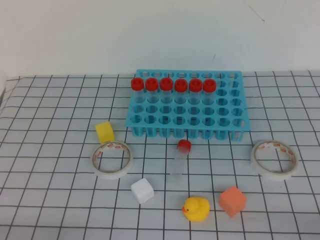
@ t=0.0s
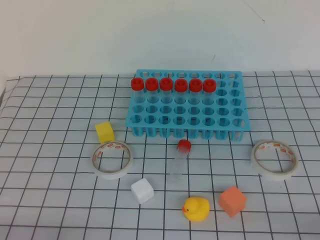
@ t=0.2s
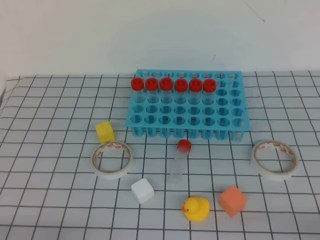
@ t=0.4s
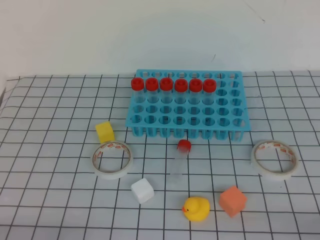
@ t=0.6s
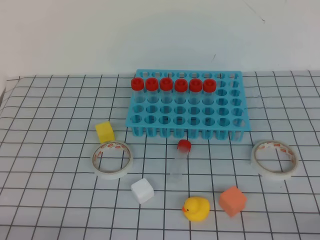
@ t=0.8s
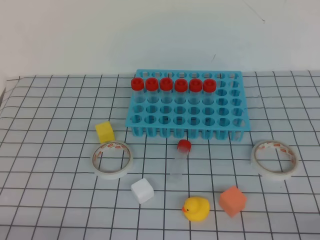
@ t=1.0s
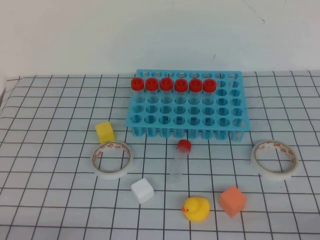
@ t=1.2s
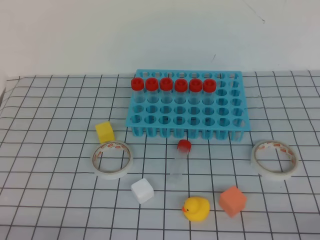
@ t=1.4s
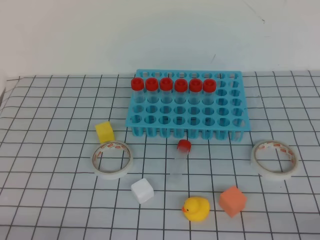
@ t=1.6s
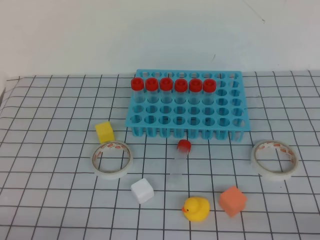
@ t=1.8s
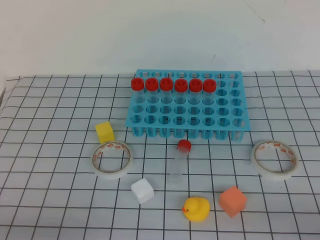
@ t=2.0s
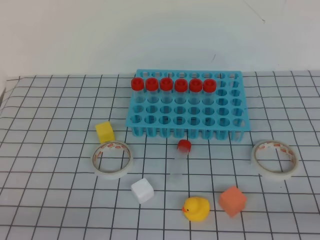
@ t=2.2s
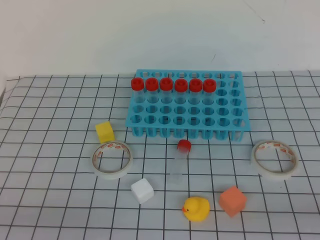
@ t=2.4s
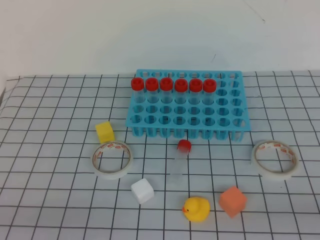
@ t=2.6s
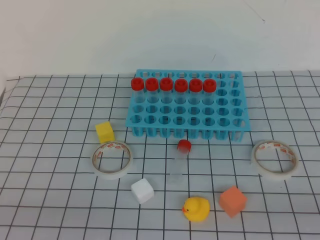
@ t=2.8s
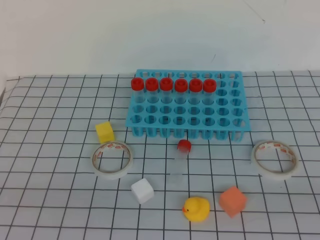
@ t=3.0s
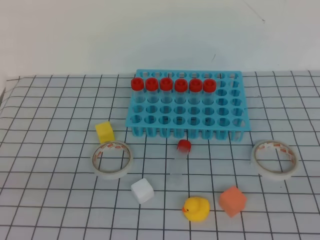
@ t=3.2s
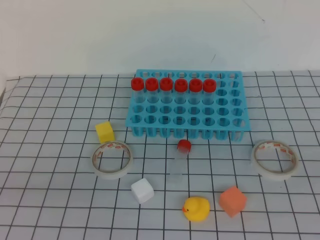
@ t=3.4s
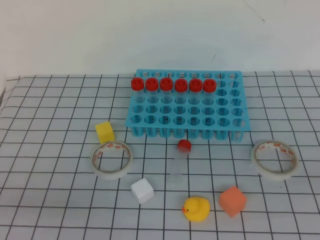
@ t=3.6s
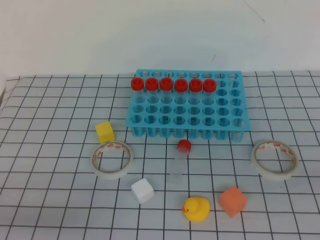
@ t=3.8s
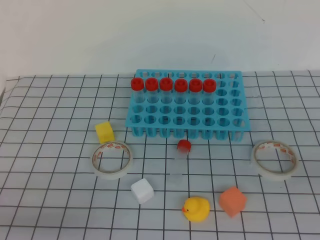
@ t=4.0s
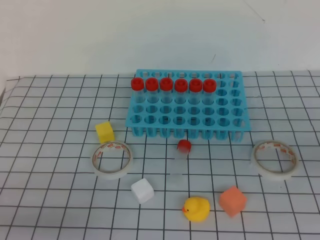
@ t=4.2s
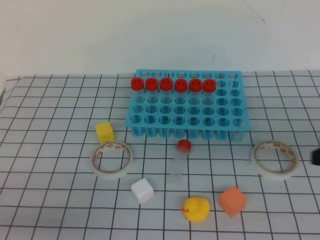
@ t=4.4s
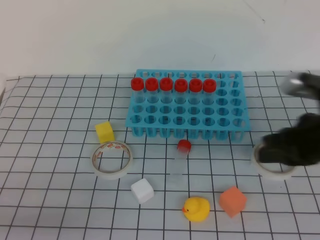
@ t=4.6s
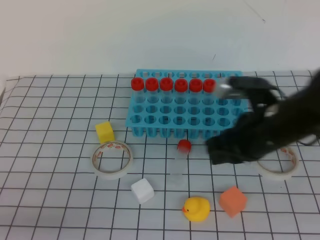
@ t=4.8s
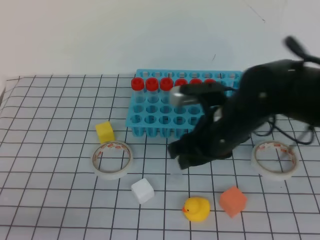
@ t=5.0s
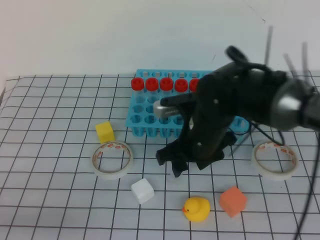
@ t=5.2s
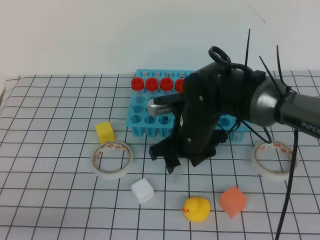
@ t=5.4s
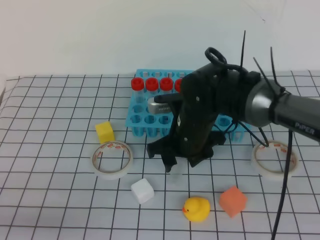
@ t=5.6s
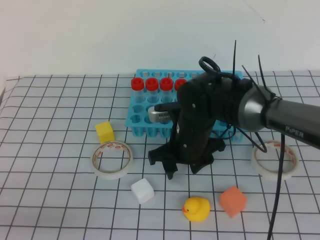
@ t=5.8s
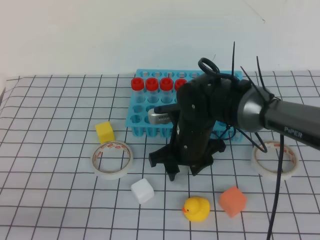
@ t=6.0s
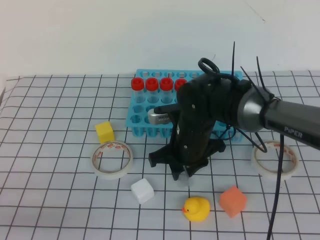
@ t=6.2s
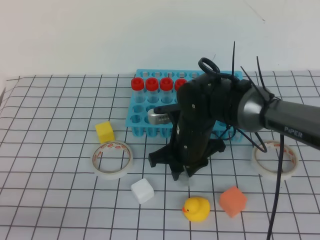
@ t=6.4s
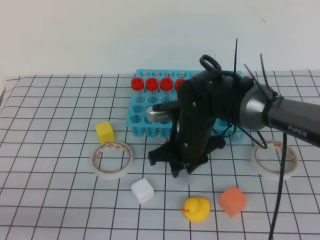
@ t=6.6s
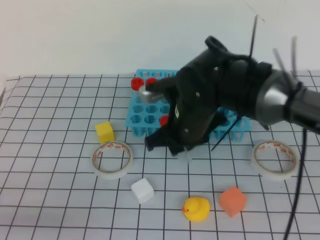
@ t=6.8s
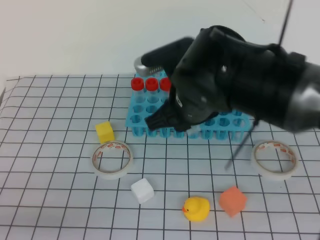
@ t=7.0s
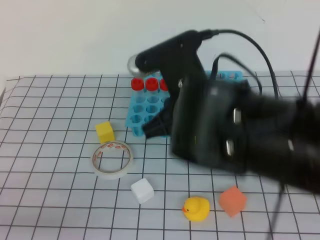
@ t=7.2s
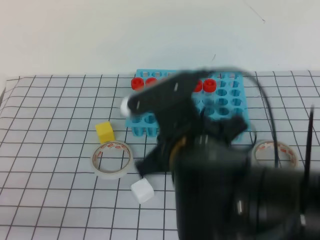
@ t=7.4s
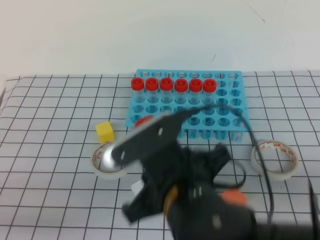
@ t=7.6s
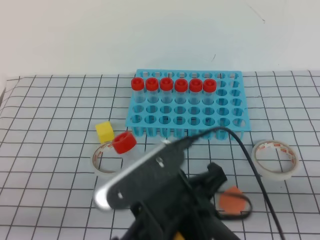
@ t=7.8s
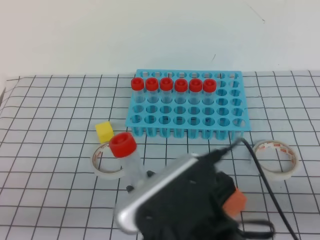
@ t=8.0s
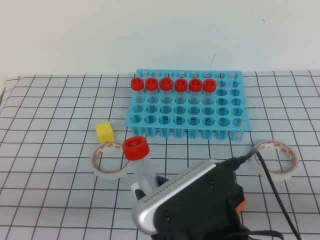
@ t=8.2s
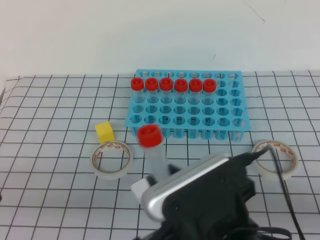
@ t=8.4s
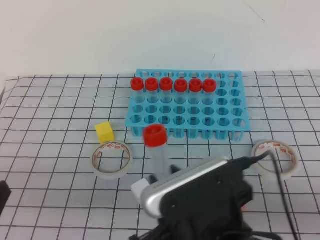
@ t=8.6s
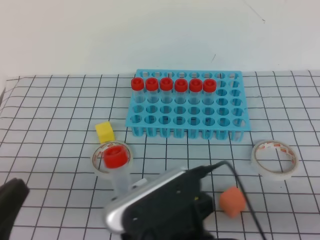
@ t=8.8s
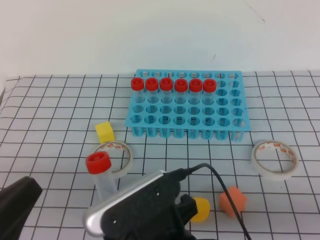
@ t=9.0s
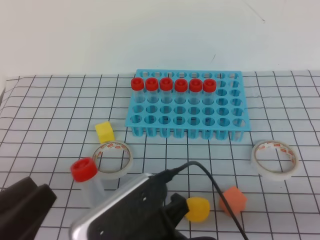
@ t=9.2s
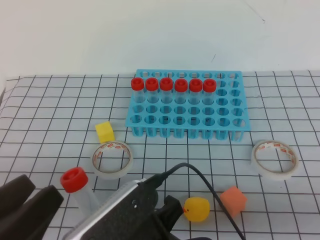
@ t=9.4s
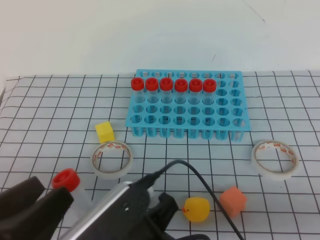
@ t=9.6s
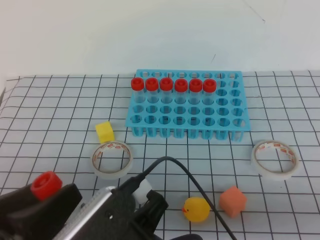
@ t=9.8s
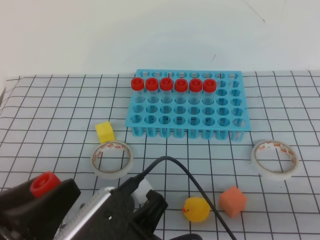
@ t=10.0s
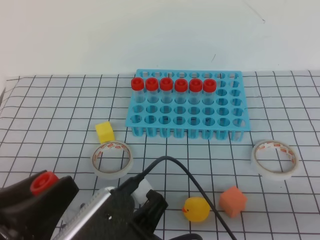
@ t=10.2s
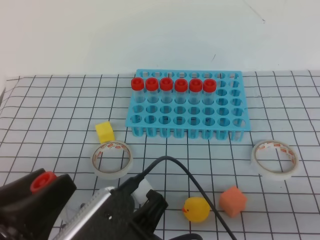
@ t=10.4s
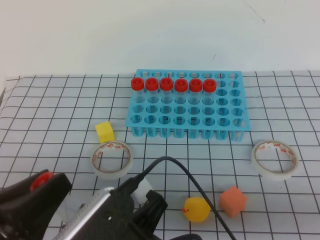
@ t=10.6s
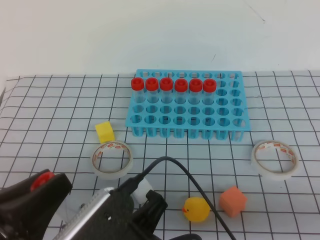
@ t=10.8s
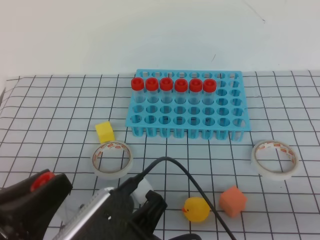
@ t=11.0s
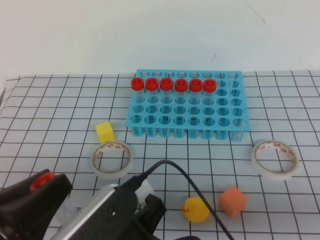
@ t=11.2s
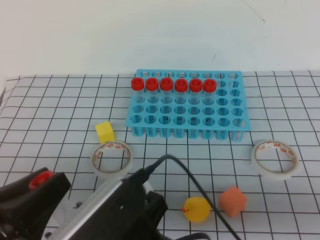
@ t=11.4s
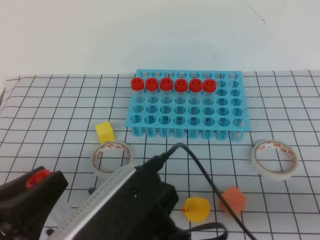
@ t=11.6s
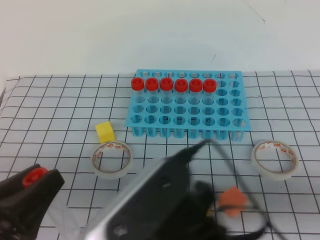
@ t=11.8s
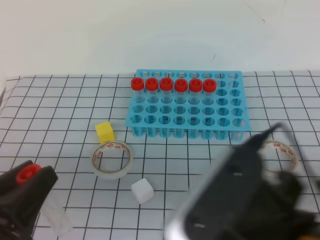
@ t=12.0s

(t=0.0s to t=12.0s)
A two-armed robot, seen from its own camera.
t=0.0s - t=1.6s: Both grippers stay about where they are.
t=3.0s - t=4.4s: The right gripper travels forward by some 20 cm.
t=4.4s - t=6.0s: The right gripper goes about 30 cm to the left and forward, and opens up.
t=6.0s - t=7.6s: The right gripper moves backward and upward, approximately 20 cm, and closes up.
t=7.6s - t=9.0s: The right gripper shifts approximately 5 cm backward.
t=9.0s - t=10.4s: The left gripper opens its fingers.
t=10.4s - t=12.0s: The right gripper heads to the right and upward, covering approximately 10 cm, and opens, then closes once more, while the left gripper closes its fingers.

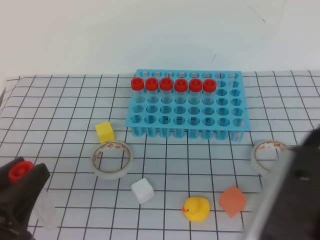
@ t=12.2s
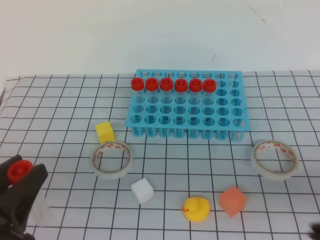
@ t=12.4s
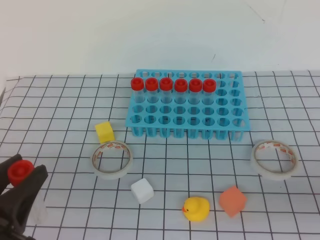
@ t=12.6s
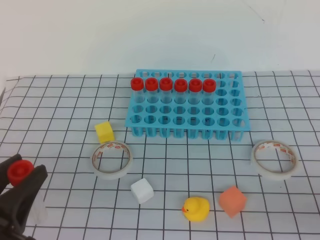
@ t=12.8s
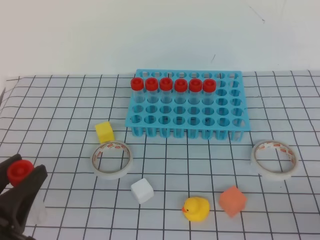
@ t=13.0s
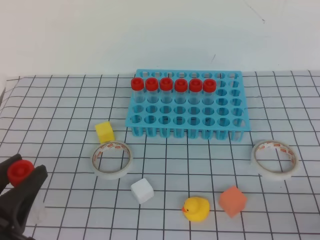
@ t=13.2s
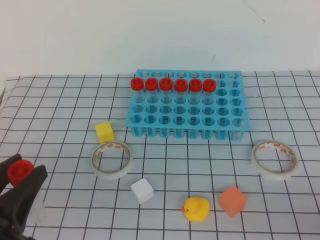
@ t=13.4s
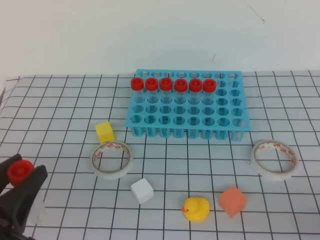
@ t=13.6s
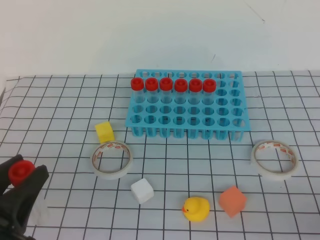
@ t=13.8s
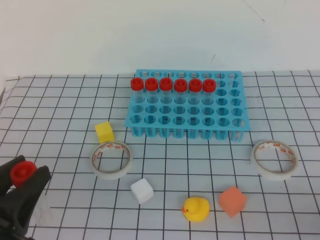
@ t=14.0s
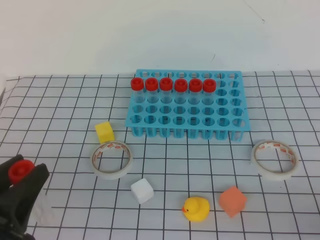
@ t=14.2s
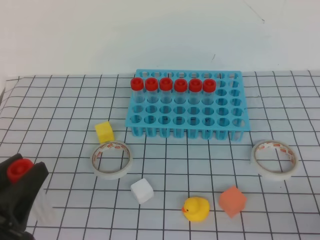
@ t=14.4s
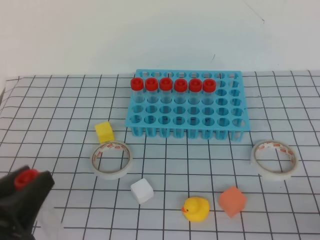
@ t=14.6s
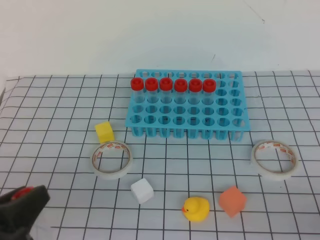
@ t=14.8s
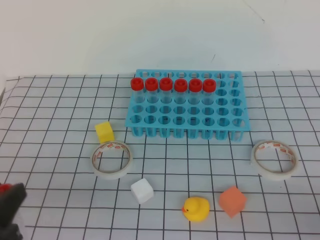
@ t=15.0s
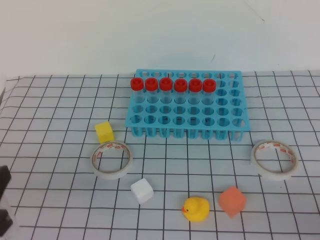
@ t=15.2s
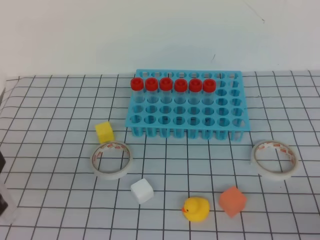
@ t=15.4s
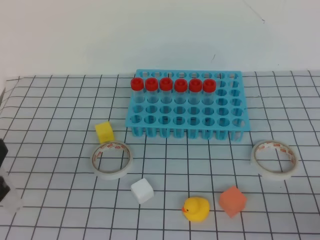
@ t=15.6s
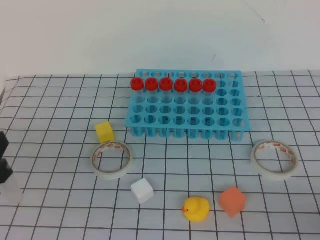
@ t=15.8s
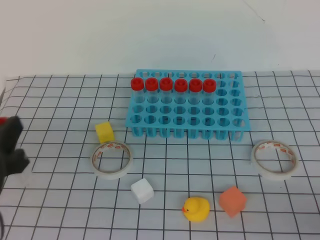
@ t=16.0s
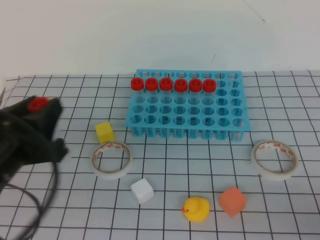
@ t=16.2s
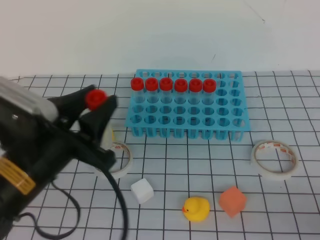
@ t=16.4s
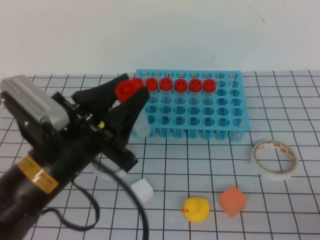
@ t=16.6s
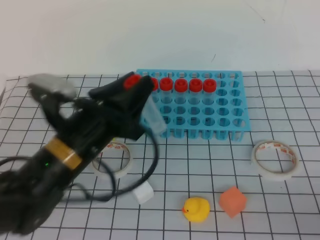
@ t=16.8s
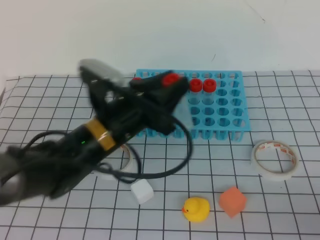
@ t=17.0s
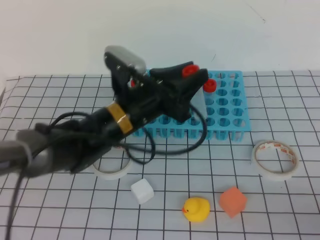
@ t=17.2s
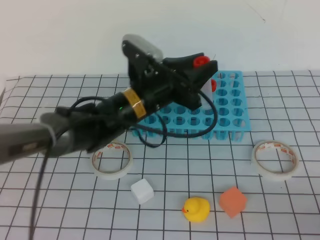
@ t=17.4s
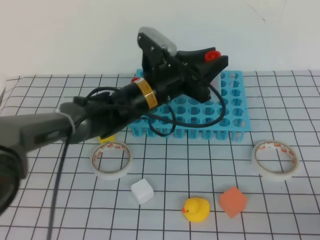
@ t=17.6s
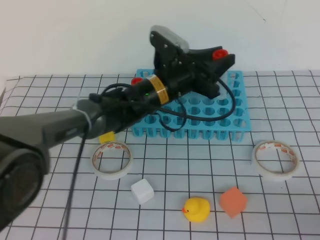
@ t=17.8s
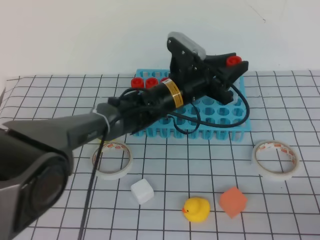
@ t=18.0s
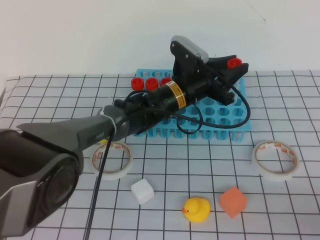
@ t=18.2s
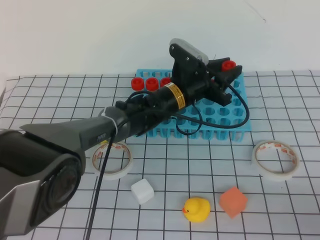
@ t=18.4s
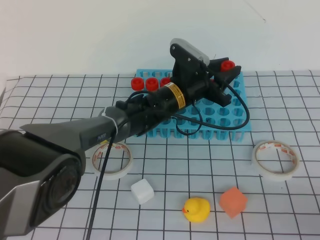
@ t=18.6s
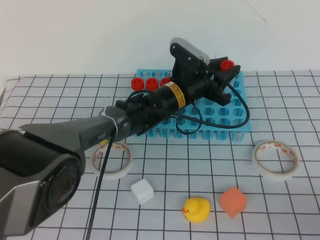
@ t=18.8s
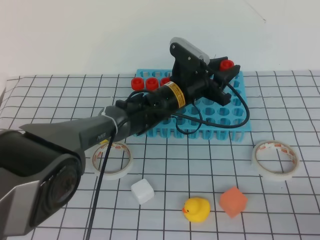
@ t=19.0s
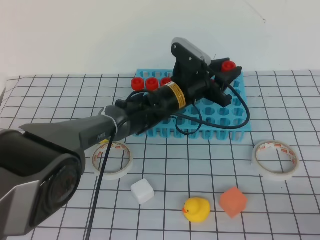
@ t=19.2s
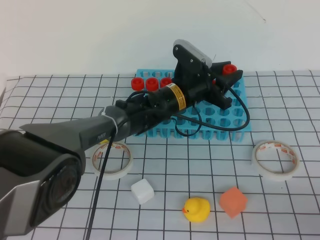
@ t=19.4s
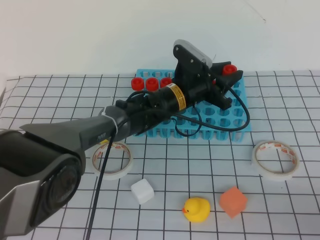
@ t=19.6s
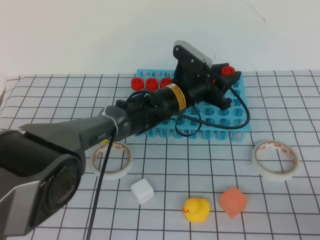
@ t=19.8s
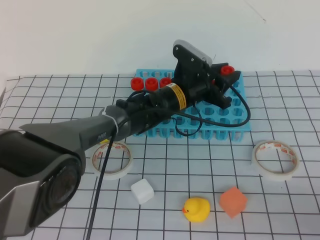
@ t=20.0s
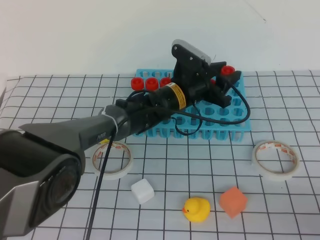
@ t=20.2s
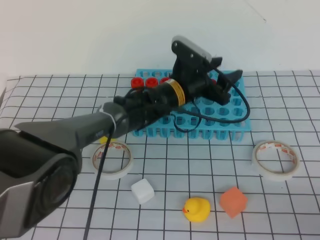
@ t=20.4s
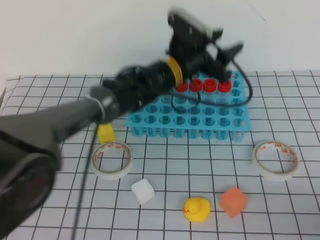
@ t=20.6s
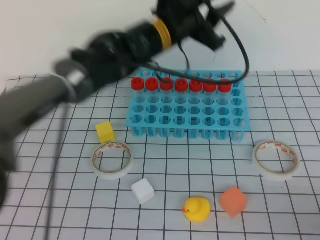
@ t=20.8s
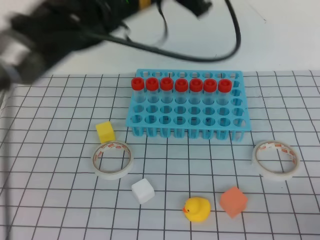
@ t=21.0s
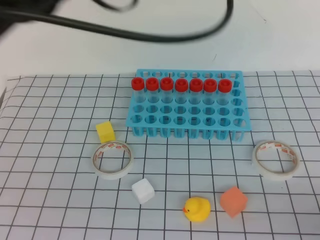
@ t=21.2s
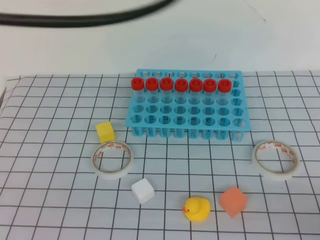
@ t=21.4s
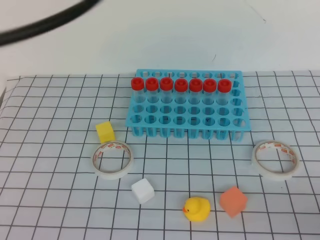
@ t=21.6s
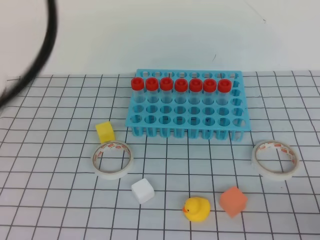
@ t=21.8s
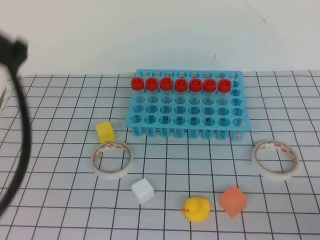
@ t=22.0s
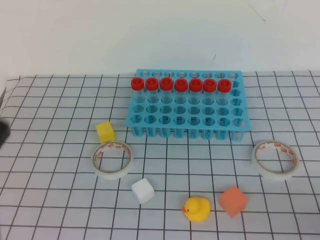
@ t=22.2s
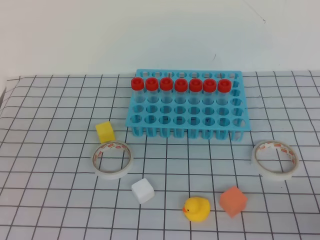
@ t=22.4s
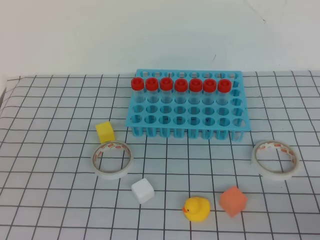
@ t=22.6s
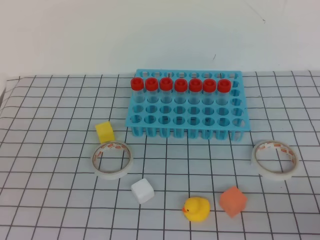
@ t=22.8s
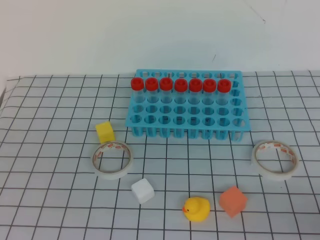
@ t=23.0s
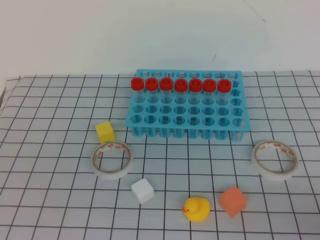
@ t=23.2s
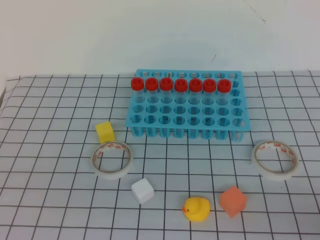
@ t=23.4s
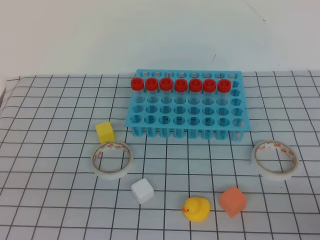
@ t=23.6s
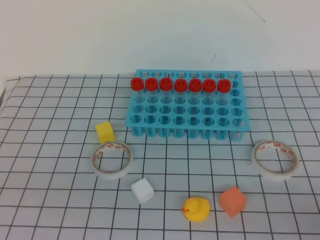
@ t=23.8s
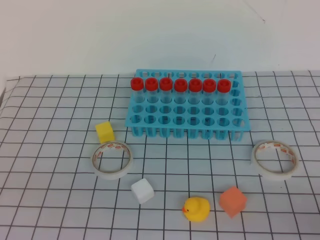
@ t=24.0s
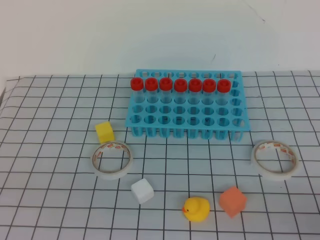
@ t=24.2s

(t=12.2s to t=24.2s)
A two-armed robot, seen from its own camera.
t=12.2s - t=13.8s: The right gripper heads to the right, covering about 15 cm.
t=15.2s - t=16.6s: The left gripper goes some 15 cm forward and to the right.
t=16.6s - t=18.2s: The left gripper travels forward and to the right by some 30 cm.
t=18.2s - t=19.8s: The grippers make only small movements.
t=19.8s - t=21.2s: The left gripper is displaced upward and backward by approximately 30 cm, and closes.
t=21.2s - t=22.6s: The left gripper moves backward, to the left and downward, approximately 35 cm.
